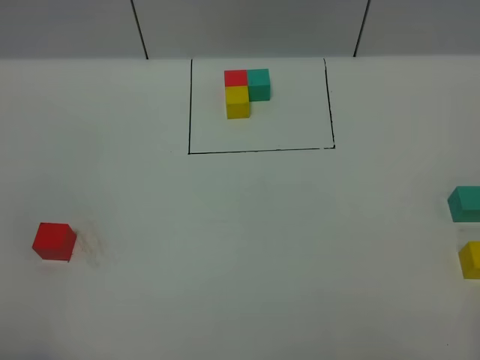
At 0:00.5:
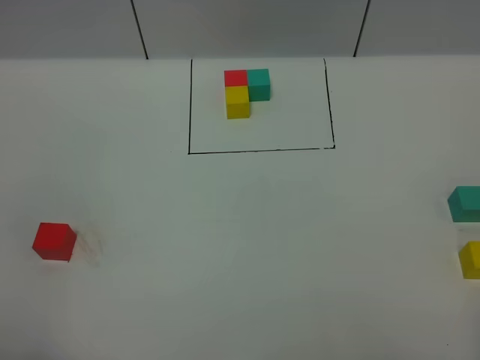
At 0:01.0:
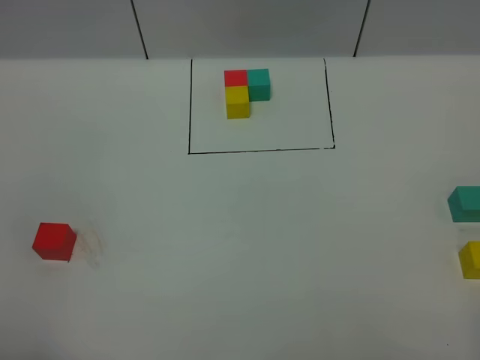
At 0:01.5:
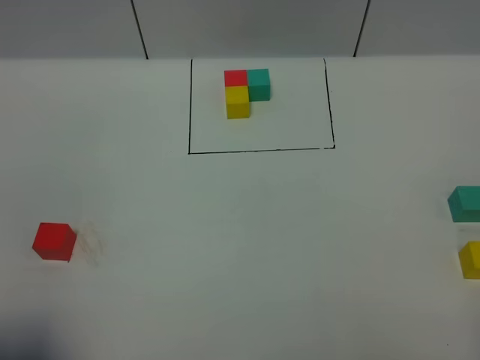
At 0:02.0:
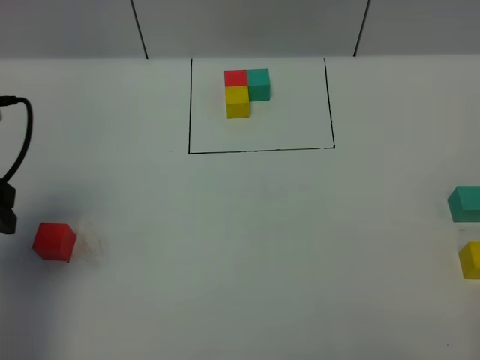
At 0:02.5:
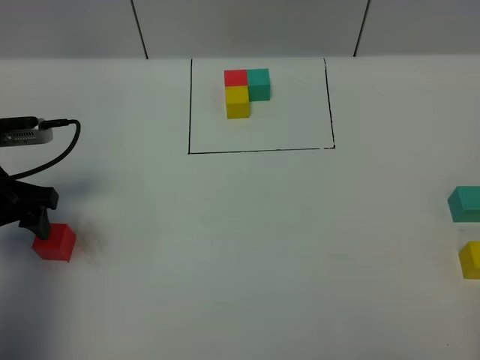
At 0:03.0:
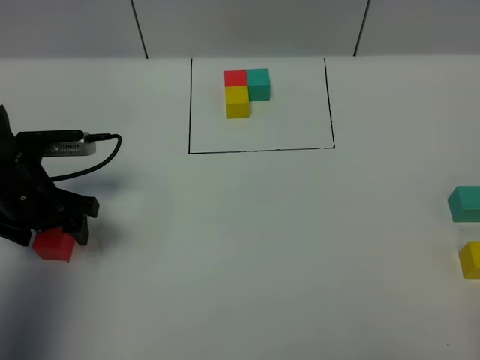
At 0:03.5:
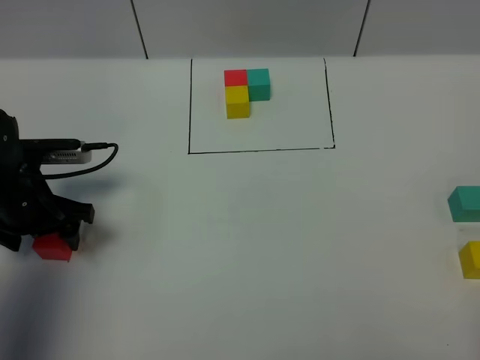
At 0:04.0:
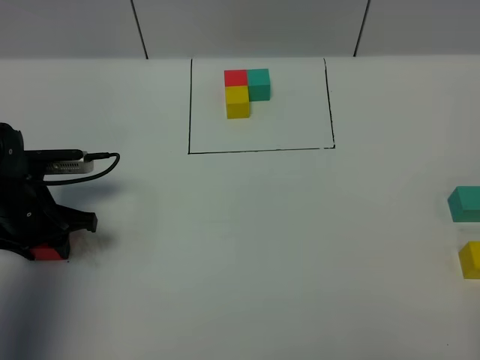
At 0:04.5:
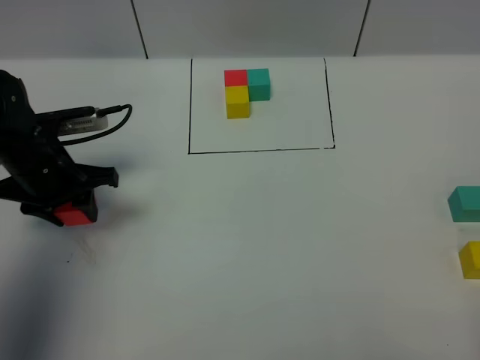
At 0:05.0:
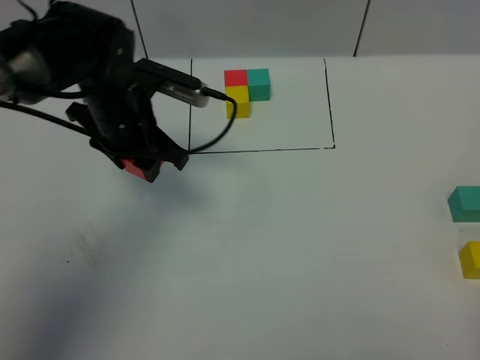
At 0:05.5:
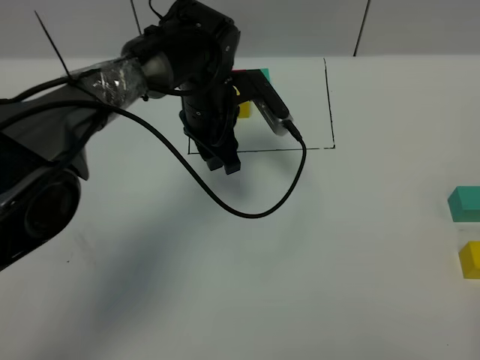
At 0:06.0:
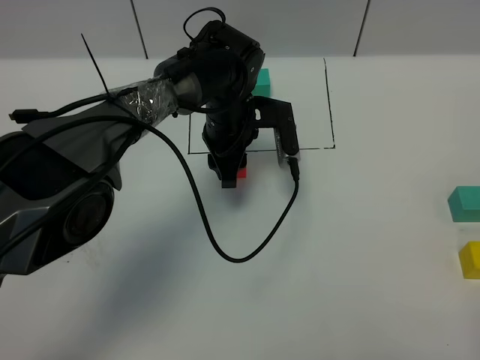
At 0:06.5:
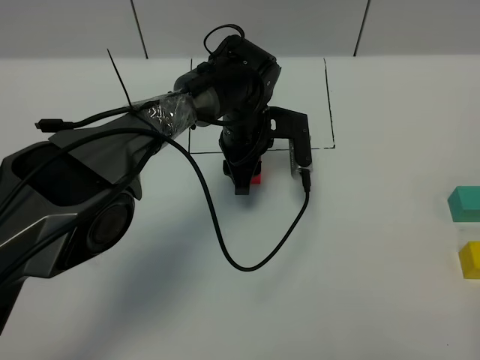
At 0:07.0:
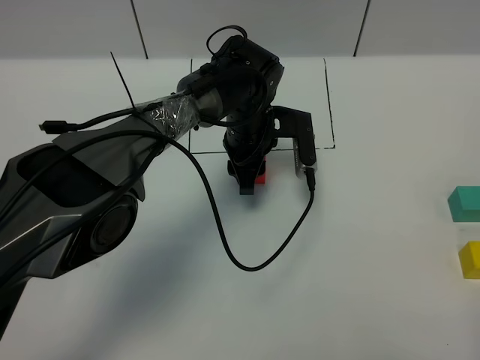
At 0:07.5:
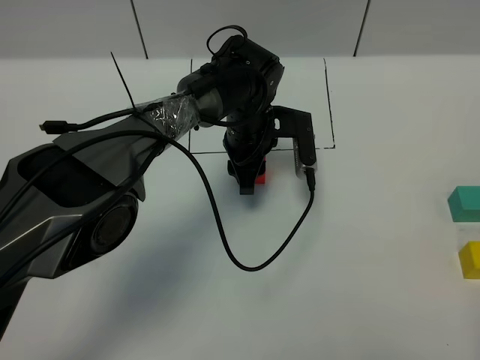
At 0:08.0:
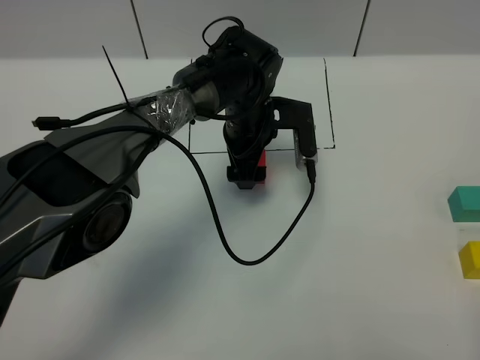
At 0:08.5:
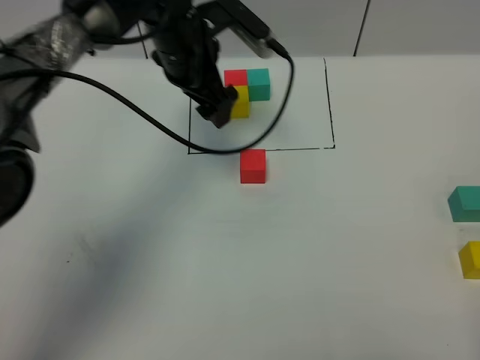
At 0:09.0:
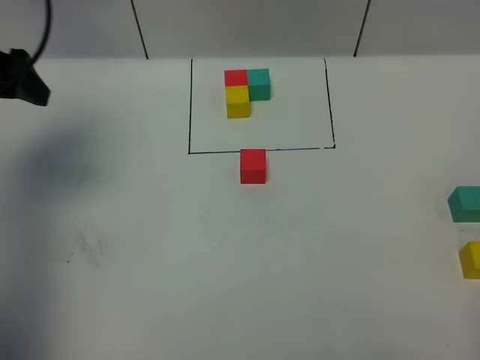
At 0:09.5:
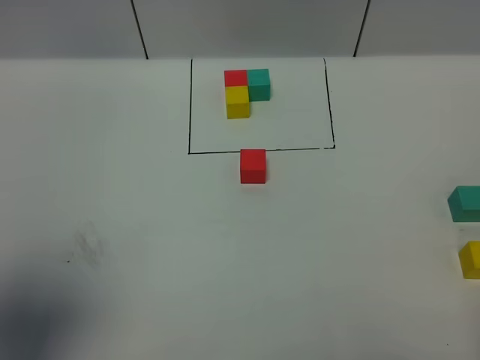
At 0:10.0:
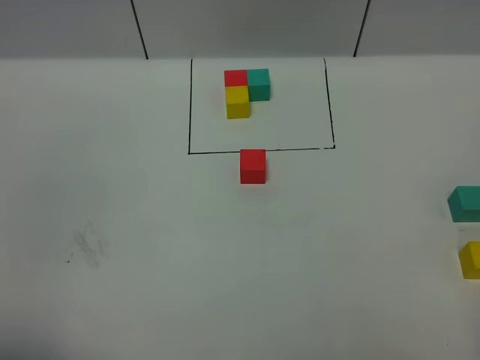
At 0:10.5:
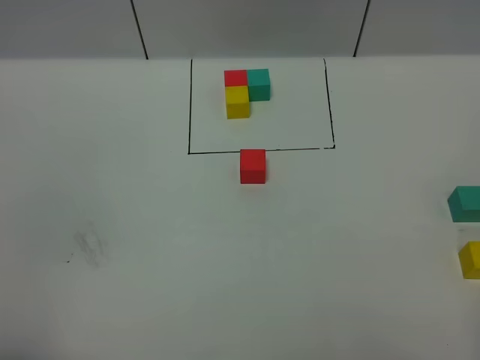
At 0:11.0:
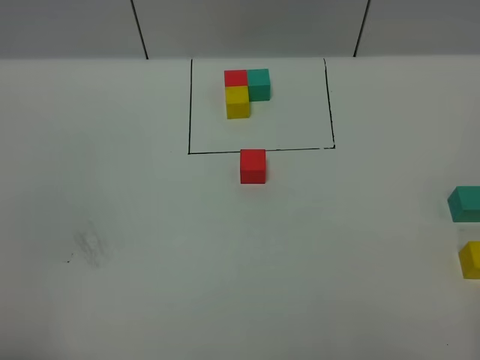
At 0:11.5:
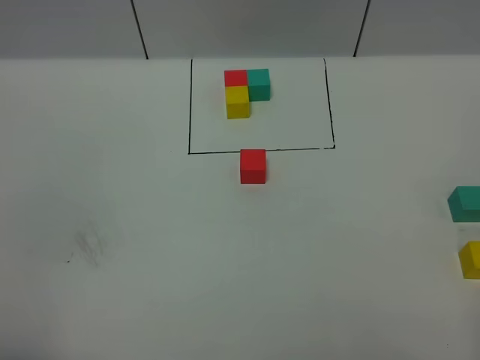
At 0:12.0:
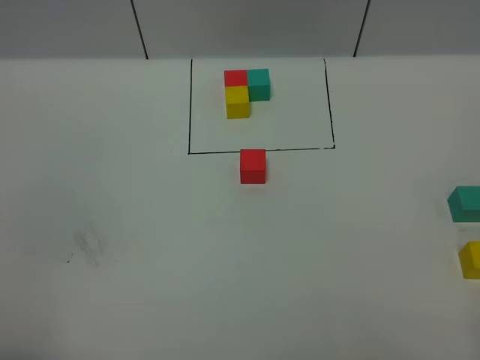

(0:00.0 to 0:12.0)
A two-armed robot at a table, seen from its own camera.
Task of the whole recording: According to the building block template in front, assemble the scattered blocks together.
Step, 0:00.0 - 0:07.5: Put the red build block in the center of the table.
0:00.0 - 0:02.0: The left gripper shifts approximately 25 cm forward.
0:02.0 - 0:04.0: The left gripper goes some 15 cm downward and forward, and closes.
0:04.0 - 0:06.0: The left gripper goes approximately 30 cm to the right and forward.
0:06.0 - 0:08.0: The left gripper opens.
0:08.0 - 0:10.0: The left gripper travels backward and to the left by approximately 50 cm.

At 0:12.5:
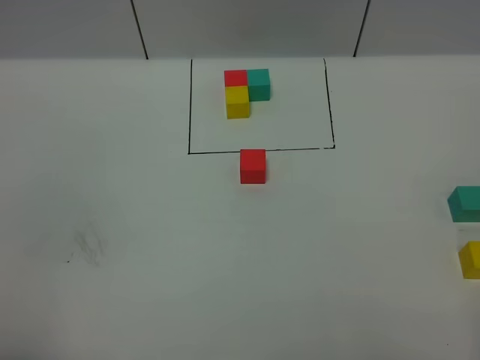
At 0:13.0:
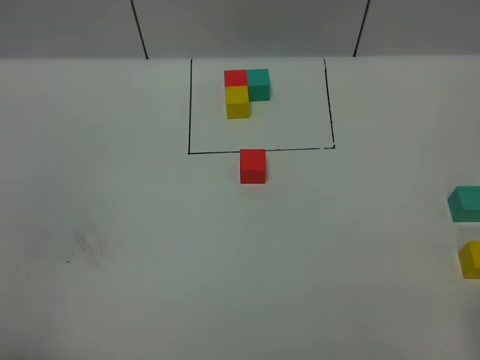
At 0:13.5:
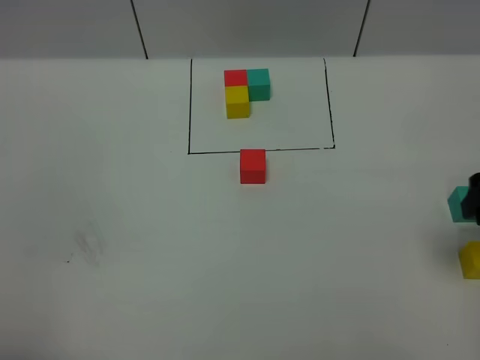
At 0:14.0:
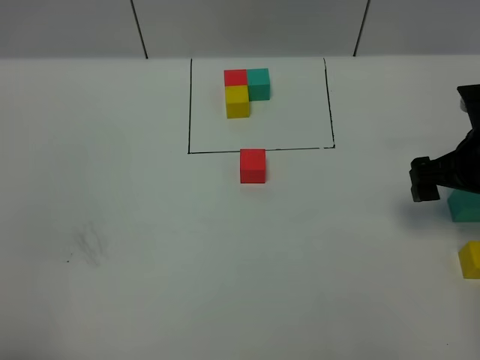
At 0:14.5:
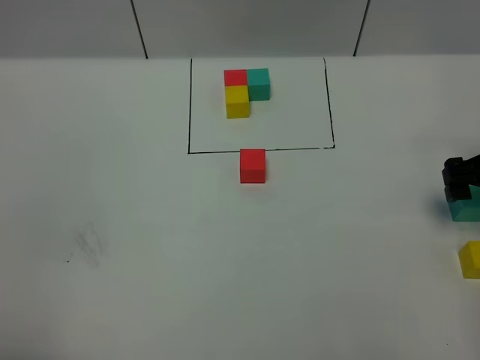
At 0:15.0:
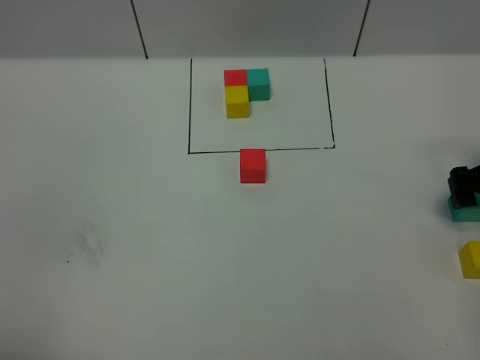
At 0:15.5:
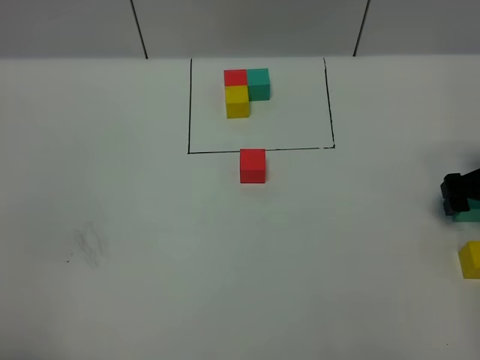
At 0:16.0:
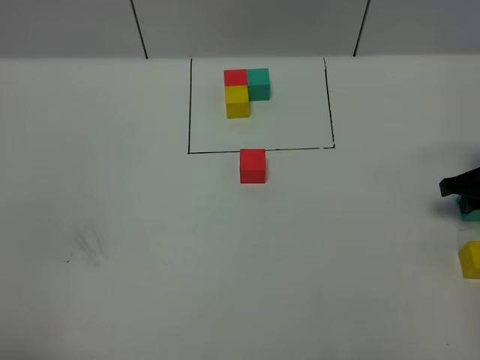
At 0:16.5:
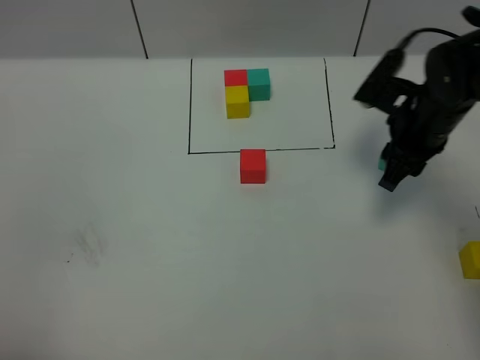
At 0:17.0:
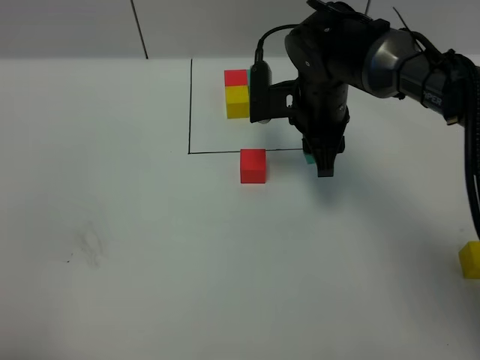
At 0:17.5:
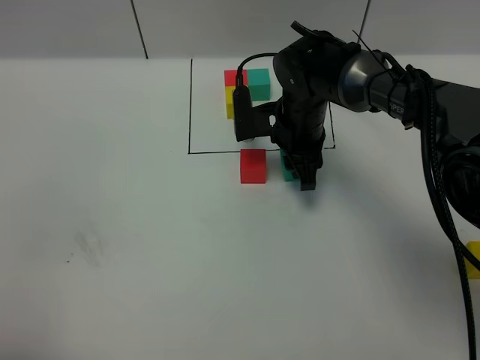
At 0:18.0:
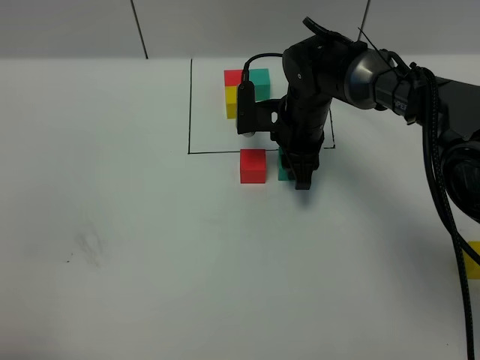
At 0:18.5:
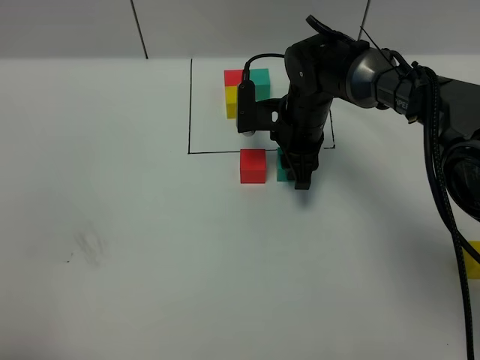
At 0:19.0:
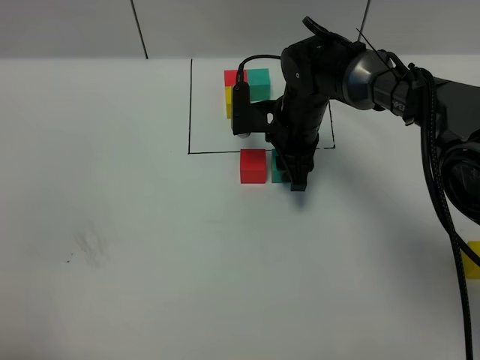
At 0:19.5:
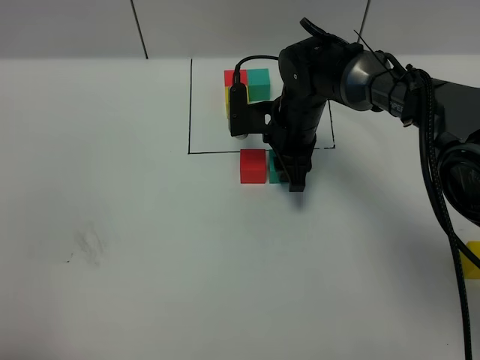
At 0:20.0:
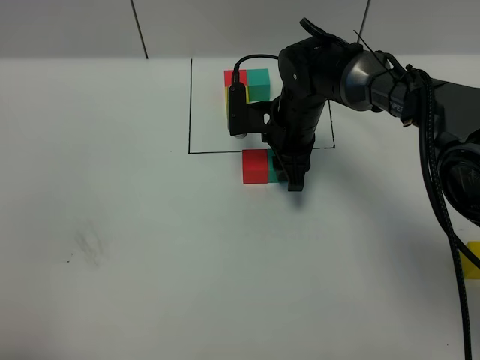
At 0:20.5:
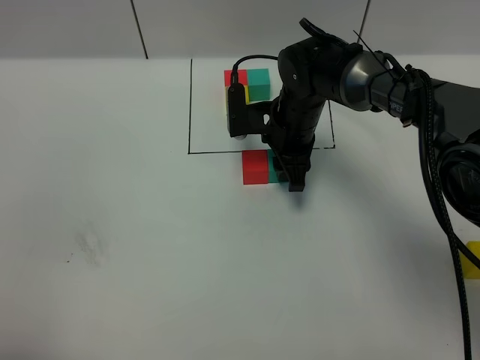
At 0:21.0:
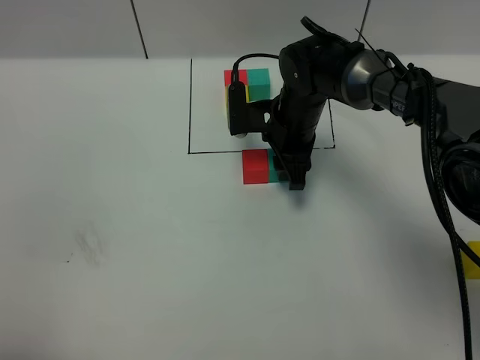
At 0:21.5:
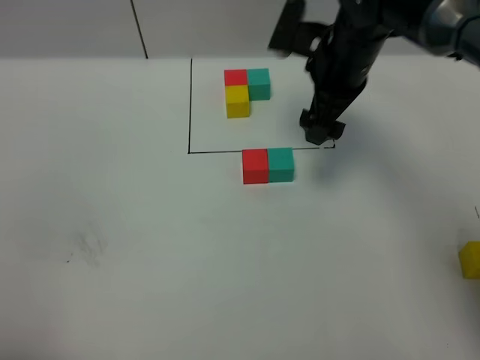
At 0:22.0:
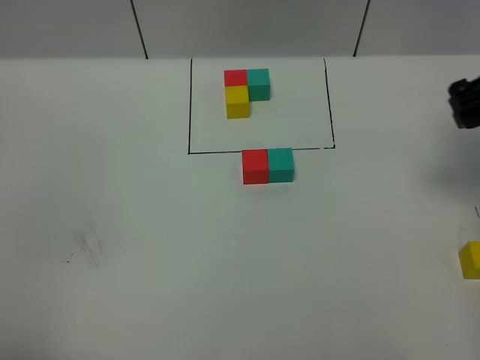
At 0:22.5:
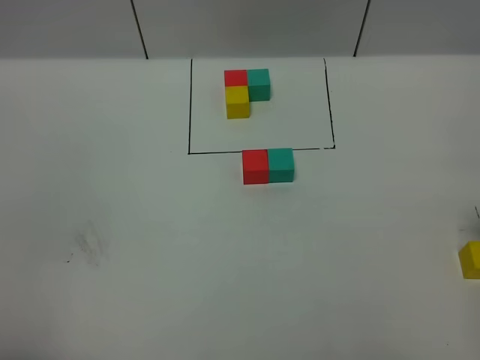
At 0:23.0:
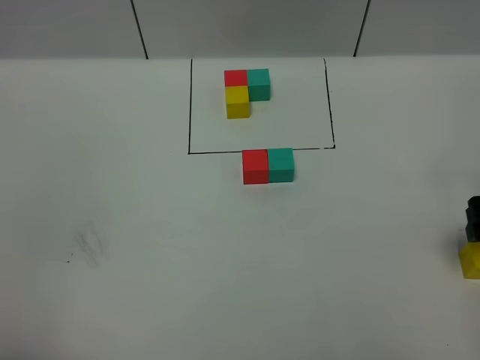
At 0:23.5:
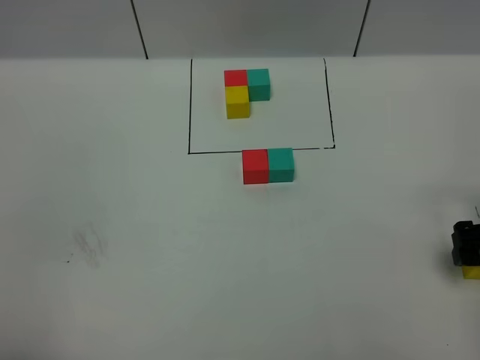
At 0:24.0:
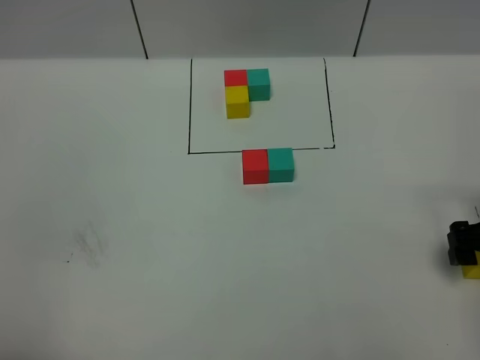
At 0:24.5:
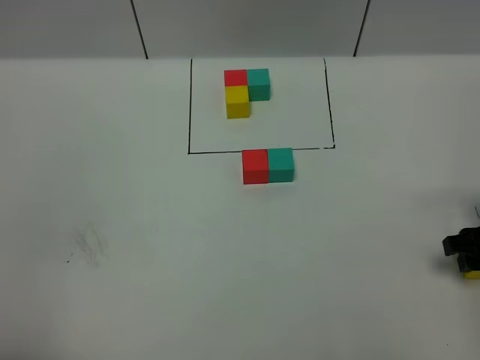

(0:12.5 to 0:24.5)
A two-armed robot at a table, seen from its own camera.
Task of the whole recording: According to the building block template in front, assemble the scattered blocks together.
Step, 0:12.5 - 0:21.0: Put the green build block on the right of the red build block.
0:12.5 - 0:14.5: The right gripper moves forward, some 30 cm.
0:14.5 - 0:16.5: The right gripper is displaced to the left and forward by approximately 15 cm, and closes.
0:16.5 - 0:18.5: The right gripper is displaced to the left, downward and forward by approximately 15 cm.
0:18.5 - 0:20.5: Both grippers stay put.
0:20.5 - 0:22.5: The right gripper travels to the right and backward by some 35 cm, and opens its fingers.
0:22.5 - 0:24.5: The right gripper is displaced downward by approximately 10 cm, and closes.

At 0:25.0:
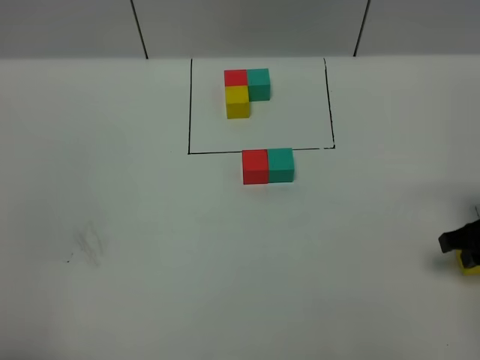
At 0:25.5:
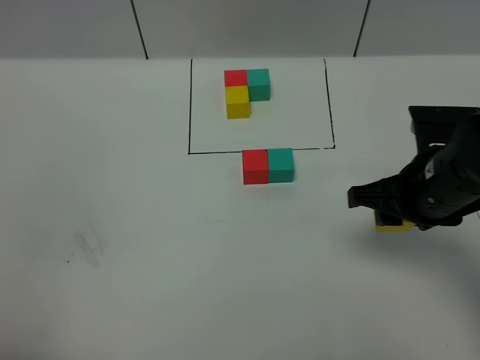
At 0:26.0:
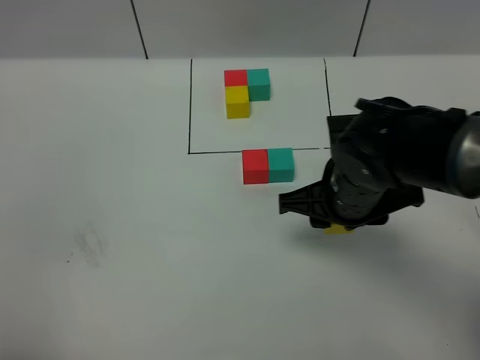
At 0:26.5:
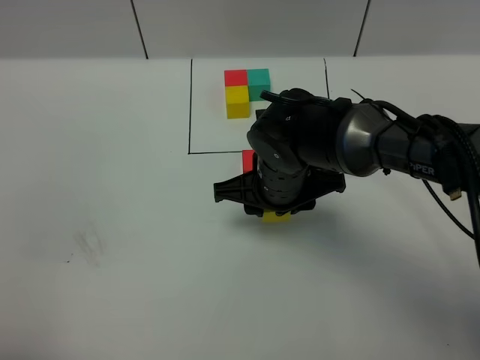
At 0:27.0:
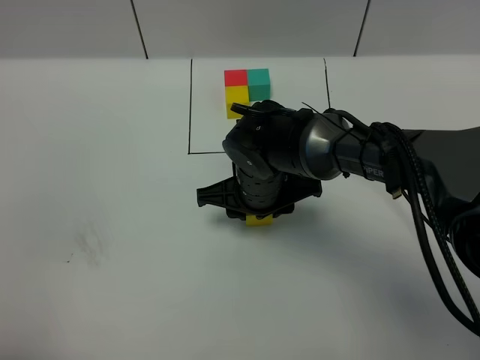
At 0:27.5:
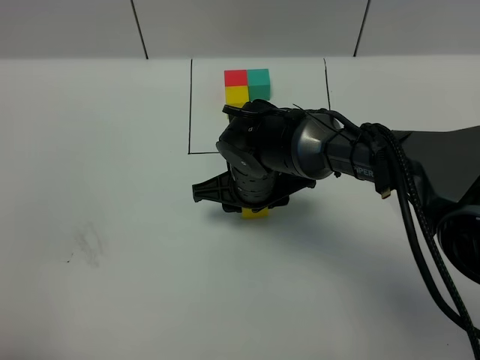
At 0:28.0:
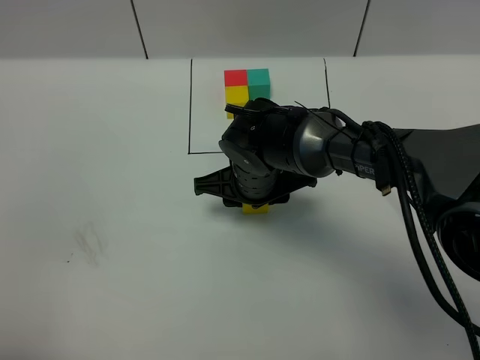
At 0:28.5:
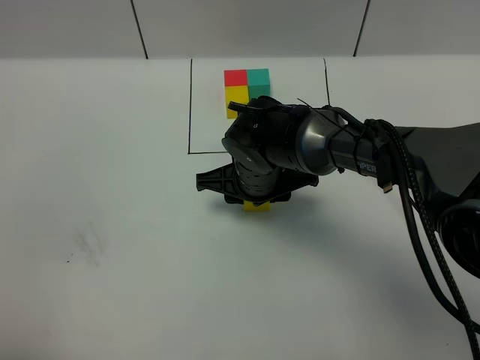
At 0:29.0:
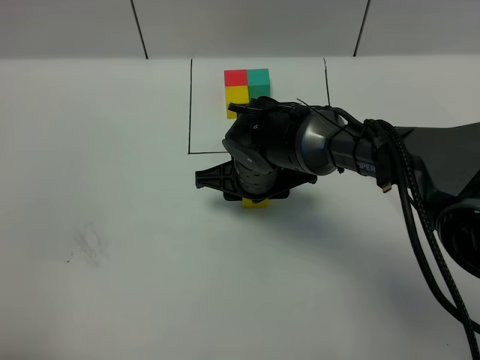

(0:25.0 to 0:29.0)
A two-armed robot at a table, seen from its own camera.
Task of the whole recording: According to the building block template in front, assemble the scattered blocks together.
0:25.0 - 0:27.0: The right gripper moves to the left, about 30 cm.
0:27.0 - 0:29.0: There are only small adjustments of the grippers.
